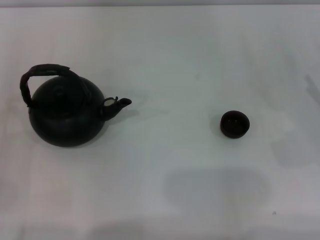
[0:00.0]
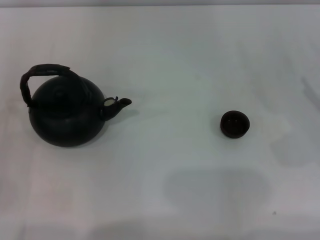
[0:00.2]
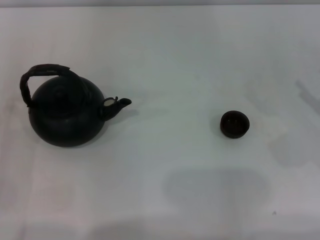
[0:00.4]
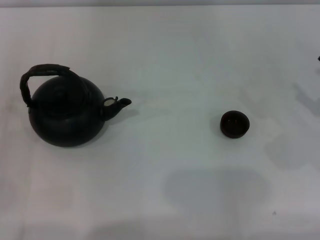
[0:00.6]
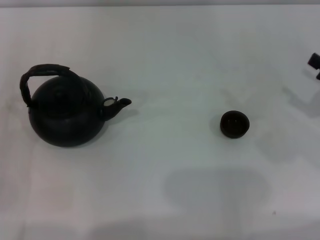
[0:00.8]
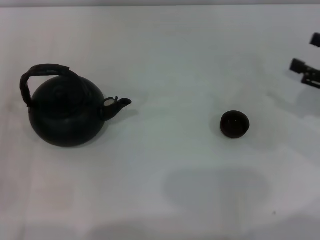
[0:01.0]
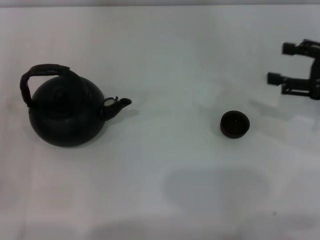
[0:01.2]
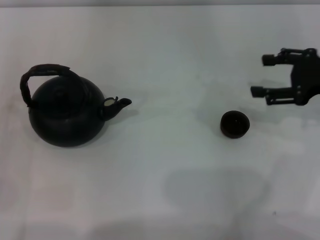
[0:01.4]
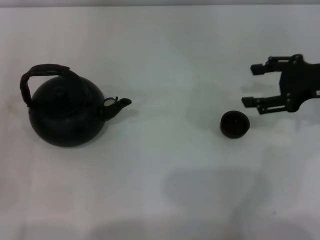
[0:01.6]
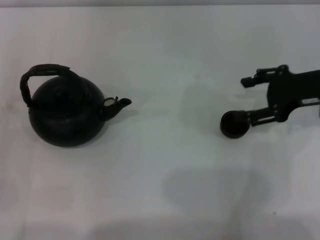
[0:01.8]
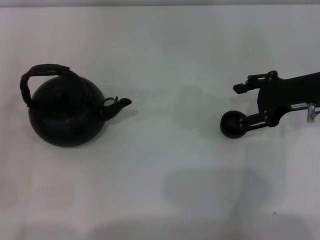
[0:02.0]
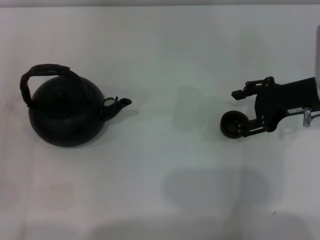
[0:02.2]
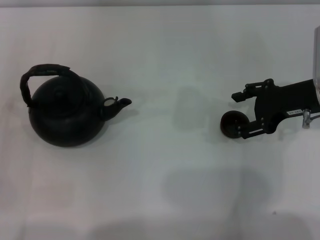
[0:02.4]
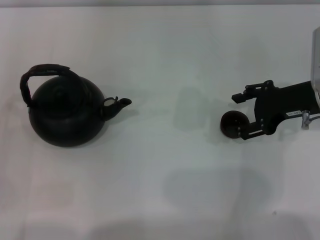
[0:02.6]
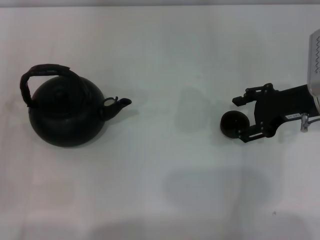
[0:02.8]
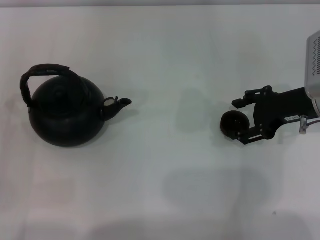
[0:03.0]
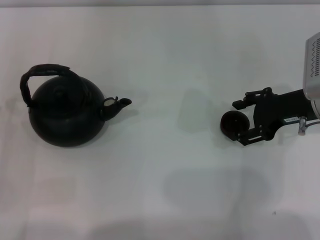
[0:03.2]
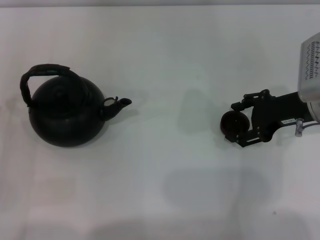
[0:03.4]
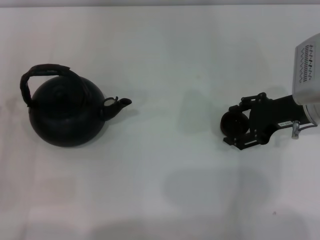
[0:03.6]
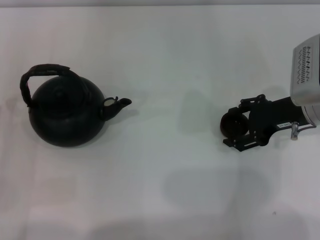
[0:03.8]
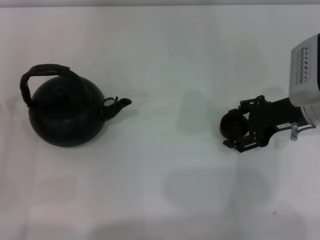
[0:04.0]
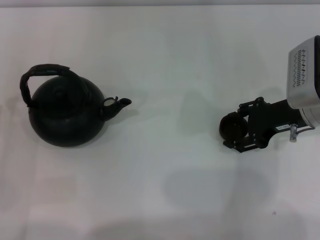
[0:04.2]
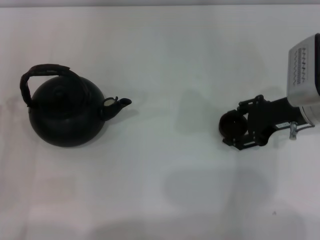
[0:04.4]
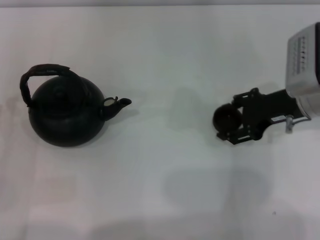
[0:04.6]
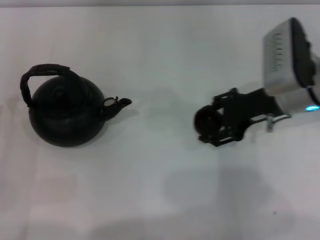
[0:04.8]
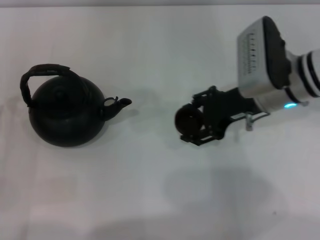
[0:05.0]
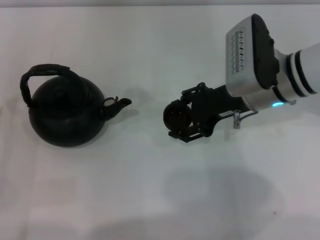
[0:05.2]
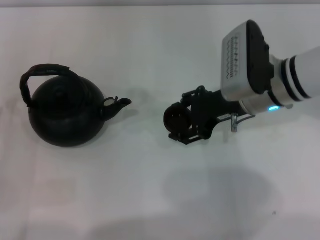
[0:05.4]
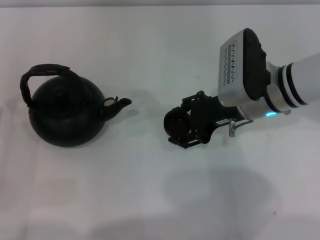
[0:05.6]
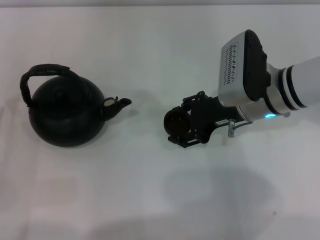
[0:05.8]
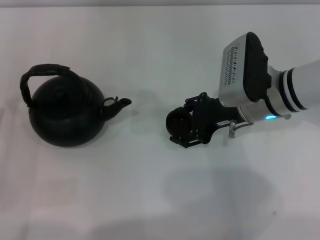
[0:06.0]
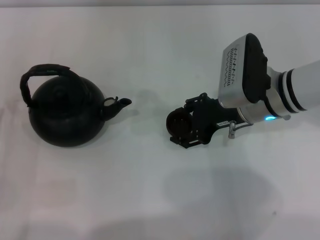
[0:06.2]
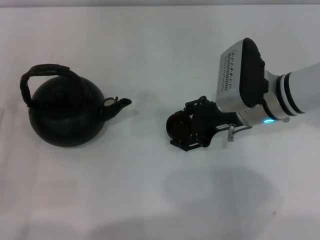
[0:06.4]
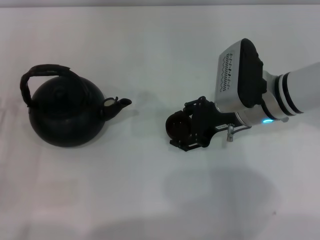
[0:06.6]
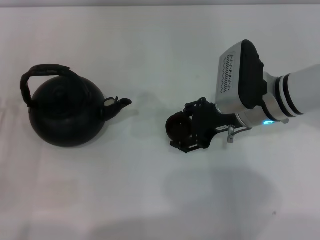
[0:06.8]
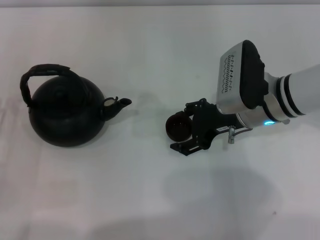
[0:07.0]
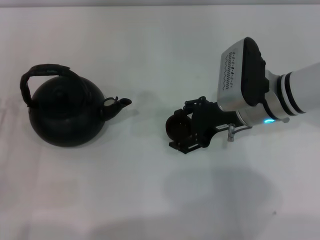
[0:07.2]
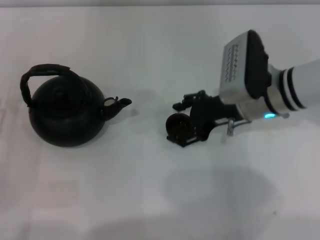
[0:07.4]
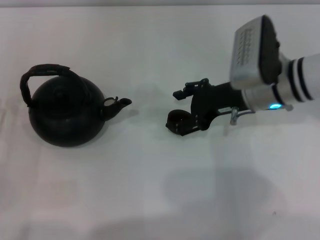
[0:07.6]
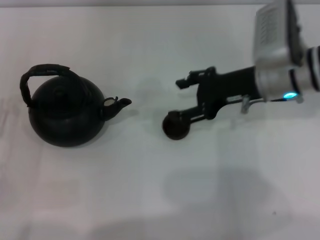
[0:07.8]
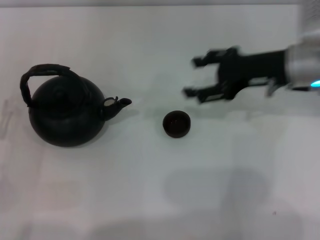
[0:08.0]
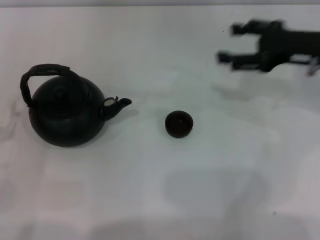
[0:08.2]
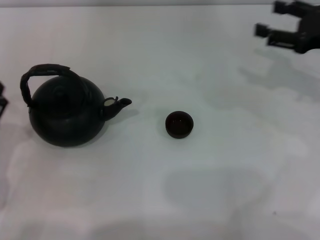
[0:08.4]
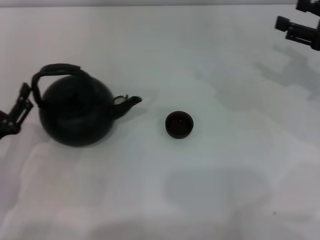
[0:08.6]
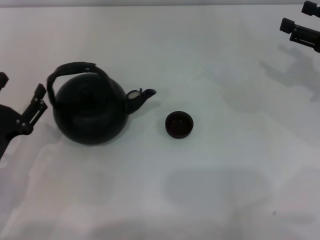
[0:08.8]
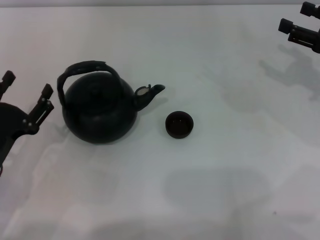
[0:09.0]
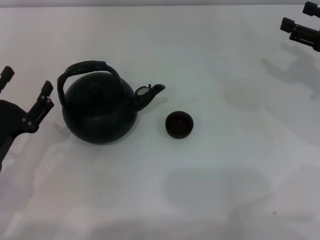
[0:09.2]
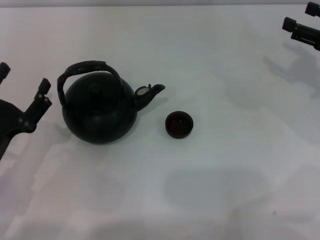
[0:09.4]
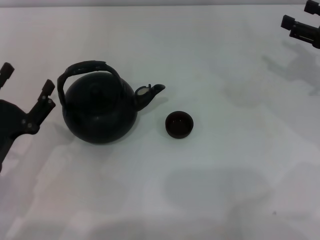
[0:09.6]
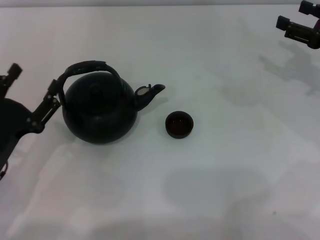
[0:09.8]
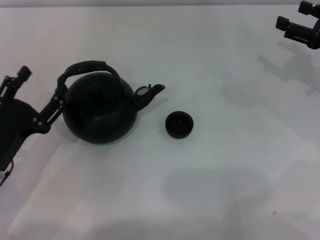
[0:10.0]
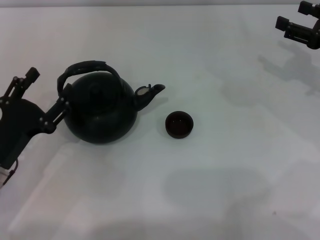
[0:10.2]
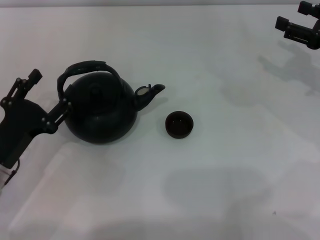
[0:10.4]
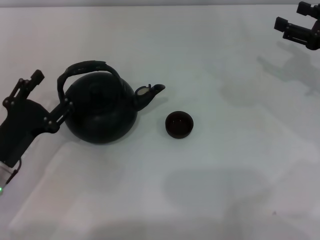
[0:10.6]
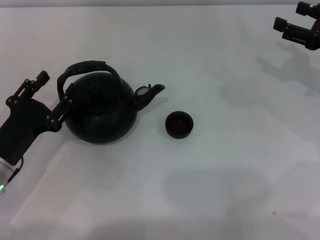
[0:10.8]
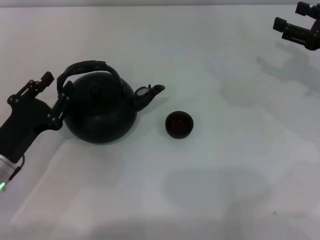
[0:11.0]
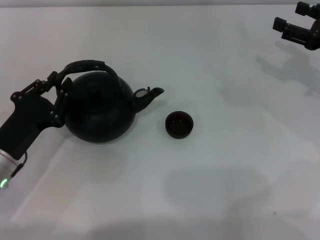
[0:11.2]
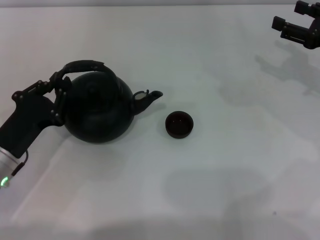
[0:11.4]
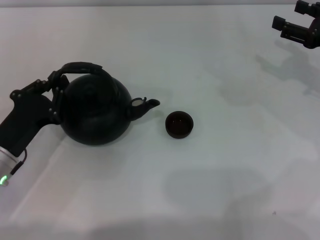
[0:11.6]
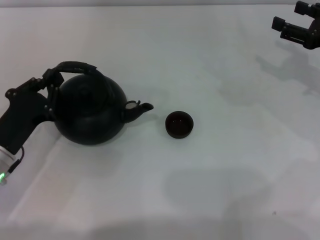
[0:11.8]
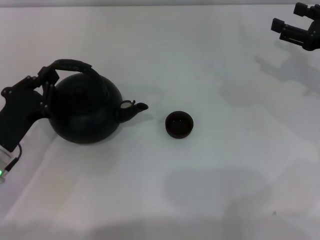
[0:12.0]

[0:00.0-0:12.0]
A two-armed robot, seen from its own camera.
Task of the whole recording: Grasp the handle of the teapot with one hand and pour tea into the teacup.
Step, 0:00.0 to 0:04.4: Pick up the teacup with the right gripper.
Step, 0:04.6 to 0:08.0: Place the teacup in the center of view with the right gripper.
0:00.0 to 0:01.6: The right gripper is displaced upward, forward and to the left by roughly 15 cm.
0:01.6 to 0:03.0: The right gripper changes place by some 5 cm.
0:03.0 to 0:04.4: The right gripper closes up.
0:04.4 to 0:06.0: The right gripper moves to the left, roughly 10 cm.
0:06.0 to 0:07.6: The right gripper opens.
0:07.6 to 0:09.0: The right gripper is displaced to the right by approximately 20 cm. Meanwhile the left gripper is displaced to the right by some 5 cm.
0:09.0 to 0:10.4: There are only small adjustments of the grippers.
0:10.4 to 0:12.0: The left gripper closes up.

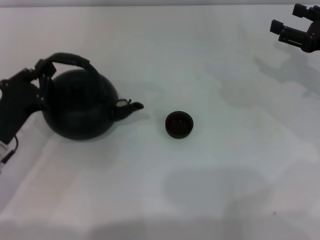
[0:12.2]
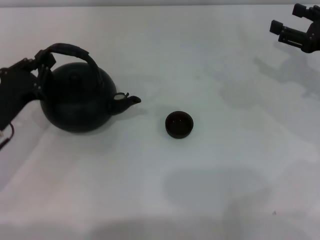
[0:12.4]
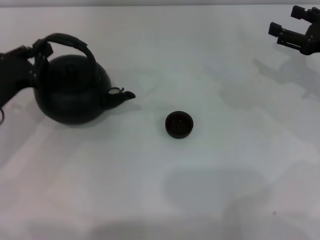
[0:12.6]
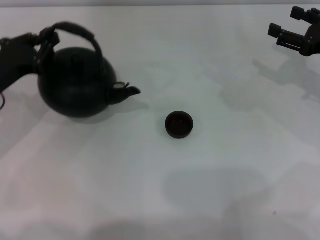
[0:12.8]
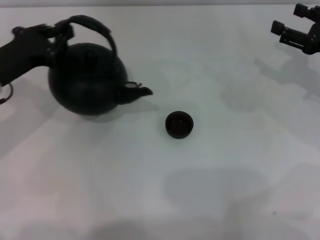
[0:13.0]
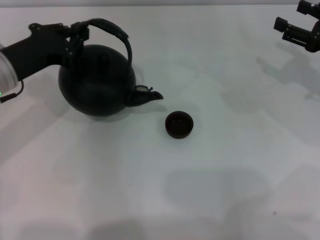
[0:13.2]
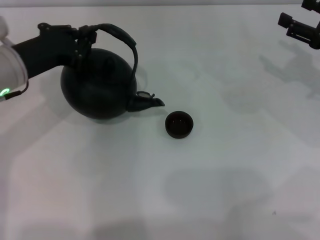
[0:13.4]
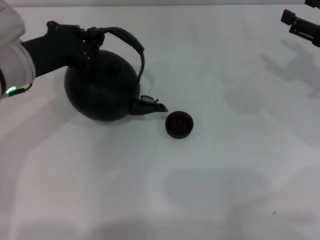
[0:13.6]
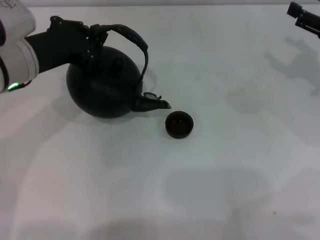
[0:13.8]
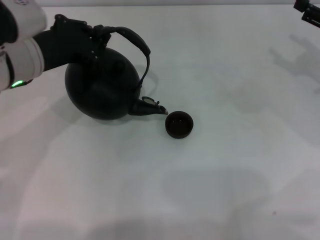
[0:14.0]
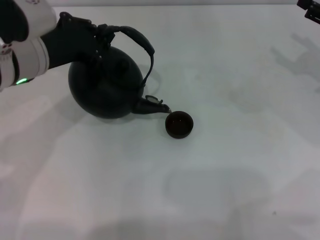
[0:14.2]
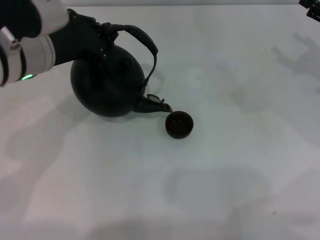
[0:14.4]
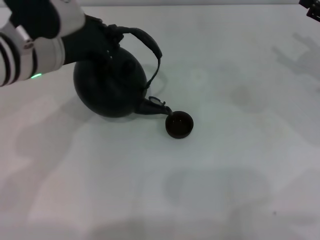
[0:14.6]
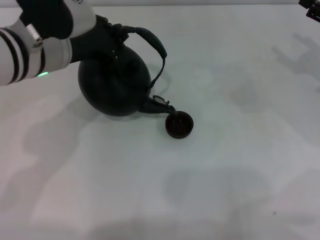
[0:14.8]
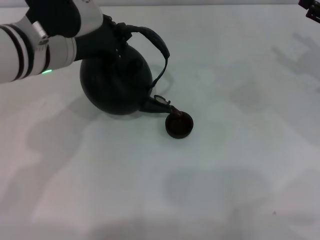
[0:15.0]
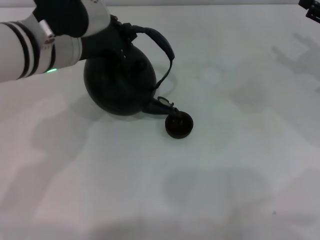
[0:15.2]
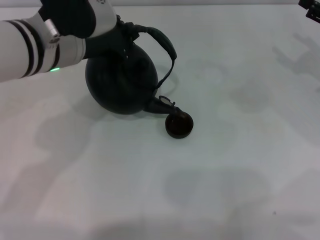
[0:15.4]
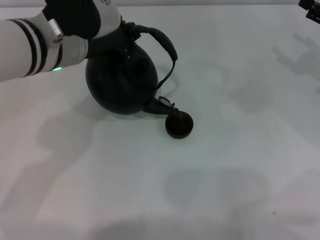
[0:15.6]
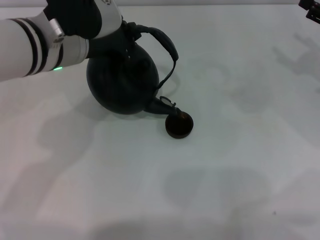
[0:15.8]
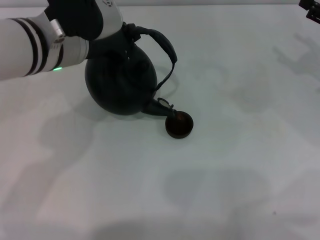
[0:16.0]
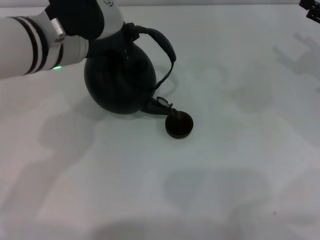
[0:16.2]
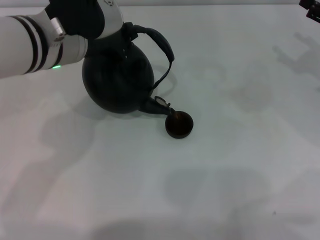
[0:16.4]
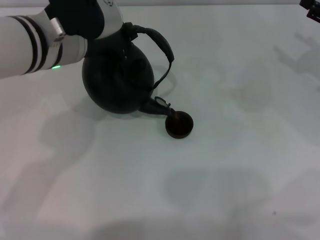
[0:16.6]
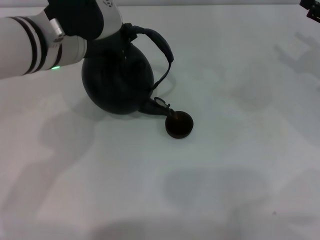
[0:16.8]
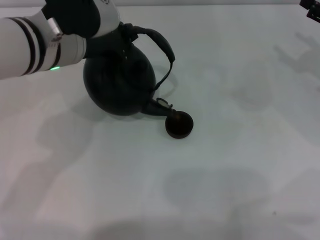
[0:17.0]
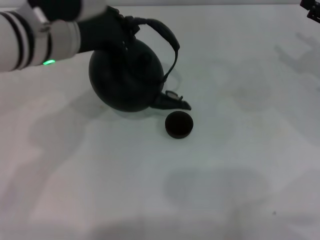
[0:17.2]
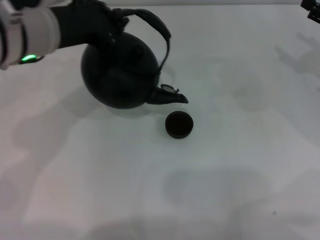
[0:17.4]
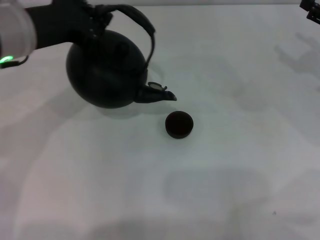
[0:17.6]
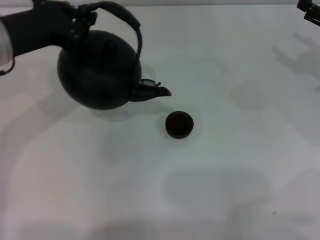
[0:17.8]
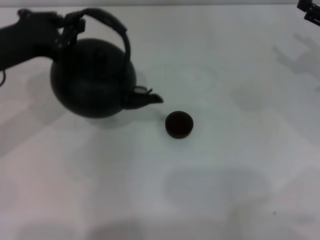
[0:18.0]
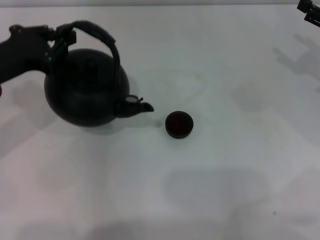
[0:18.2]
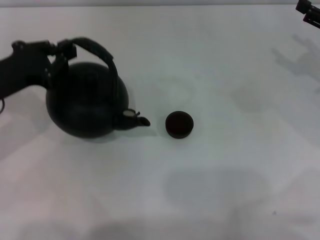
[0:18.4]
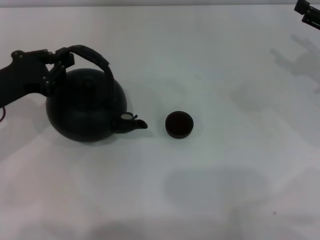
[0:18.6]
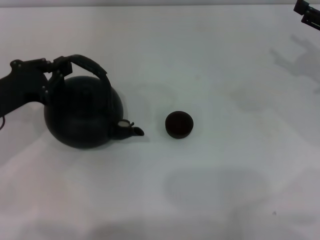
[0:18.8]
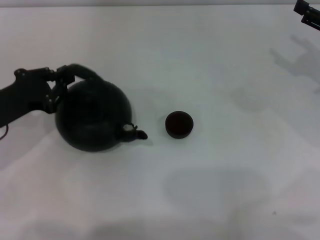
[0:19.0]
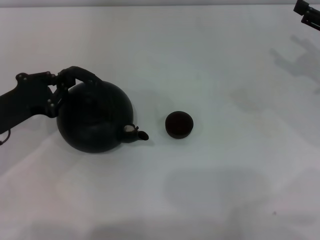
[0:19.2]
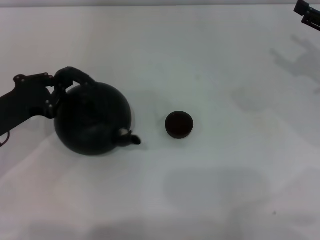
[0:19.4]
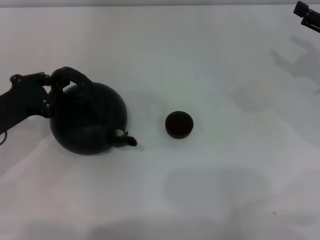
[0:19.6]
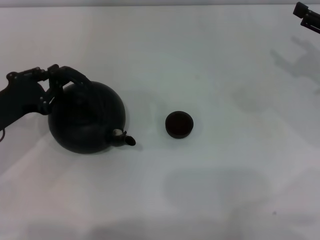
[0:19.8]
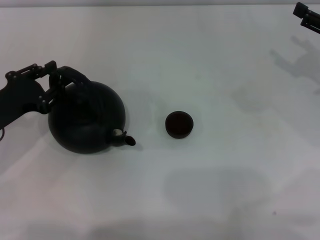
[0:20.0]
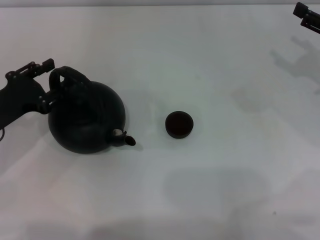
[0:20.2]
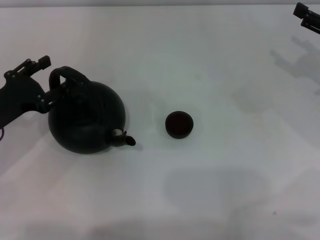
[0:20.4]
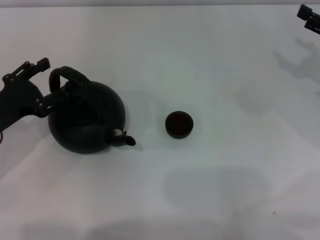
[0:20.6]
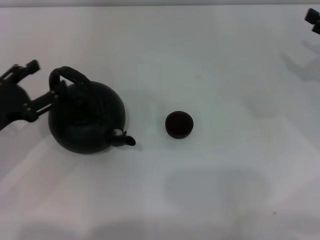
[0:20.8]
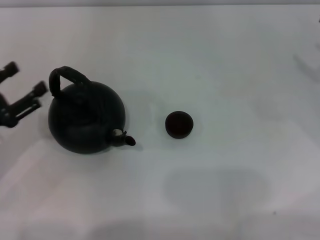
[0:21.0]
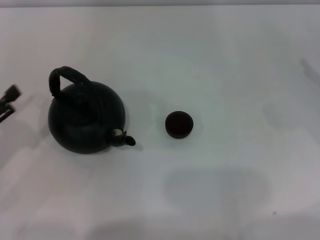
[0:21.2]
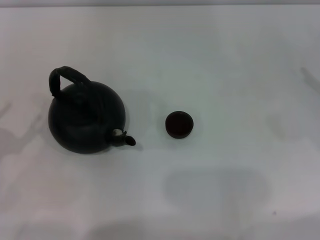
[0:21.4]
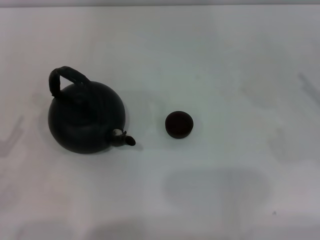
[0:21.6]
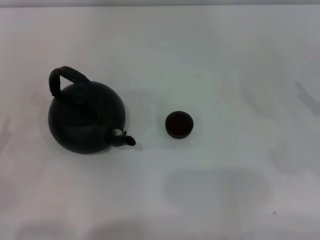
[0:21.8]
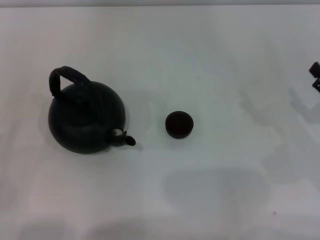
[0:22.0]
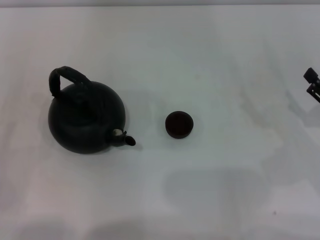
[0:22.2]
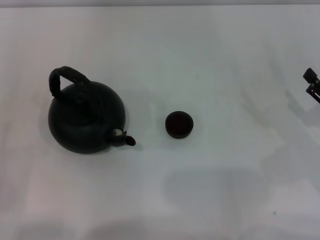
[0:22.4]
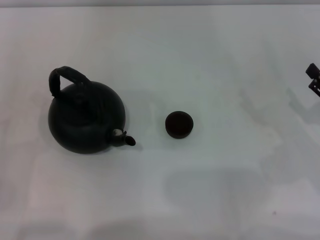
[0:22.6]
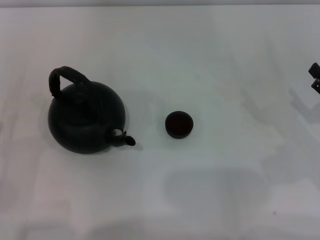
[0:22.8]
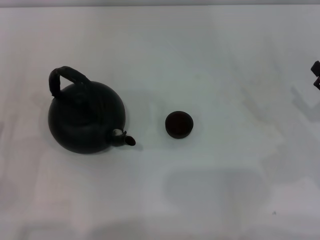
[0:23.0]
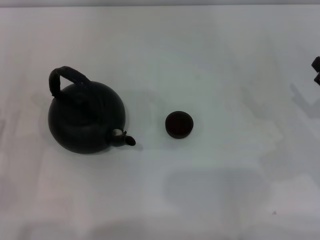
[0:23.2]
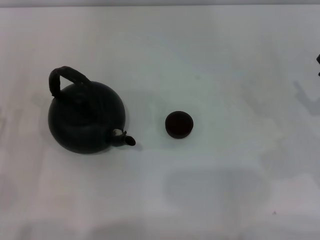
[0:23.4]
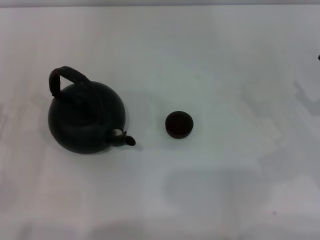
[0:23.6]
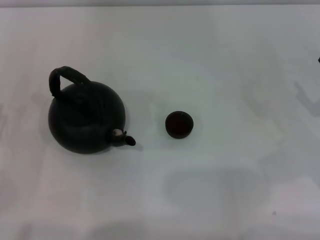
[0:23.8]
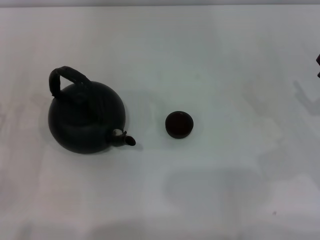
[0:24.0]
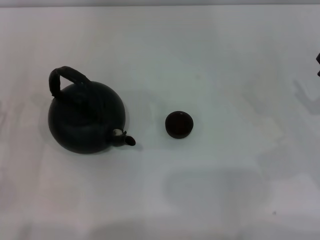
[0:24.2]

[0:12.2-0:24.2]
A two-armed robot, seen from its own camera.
Task of the whole recording: Grasp the handle of the teapot with one hand and pour tea into the teacup.
Step, 0:12.8 to 0:17.4: Pour tea into the teacup with the left gripper.
Step, 0:17.6 to 0:21.0: Put down the teapot with the left gripper.
0:12.2 to 0:13.8: The left gripper travels upward, forward and to the right by about 15 cm.
0:13.8 to 0:15.2: The left gripper travels to the right by about 5 cm.
0:15.2 to 0:16.6: The grippers stay close to where they were, moving slightly.
0:16.6 to 0:18.2: The left gripper travels to the left by roughly 15 cm.
0:18.2 to 0:19.8: The left gripper moves downward, roughly 10 cm.
0:19.8 to 0:21.2: The right gripper changes place by roughly 5 cm. Meanwhile the left gripper shifts approximately 5 cm backward, and opens its fingers.
